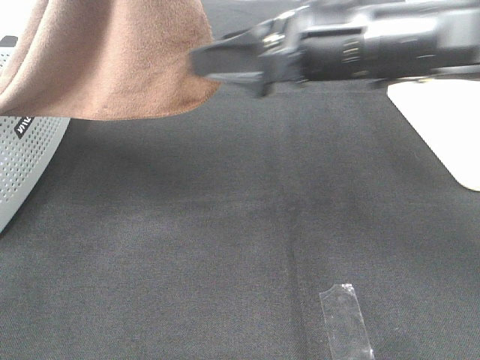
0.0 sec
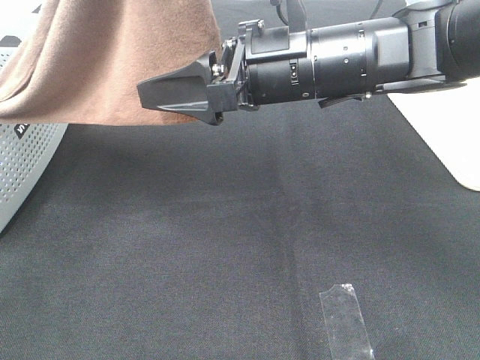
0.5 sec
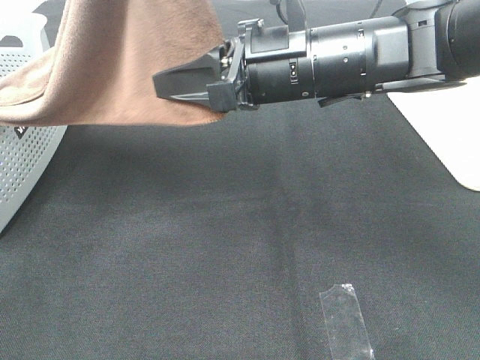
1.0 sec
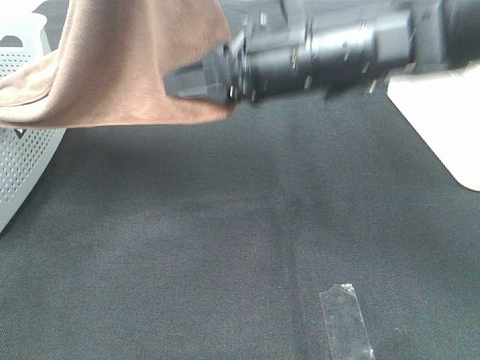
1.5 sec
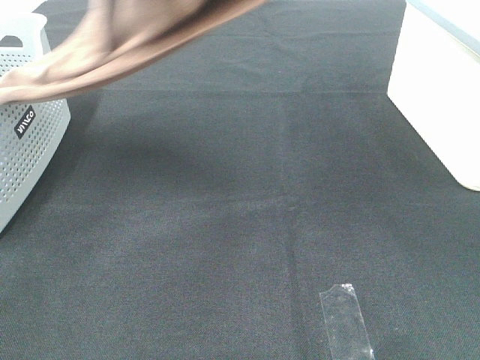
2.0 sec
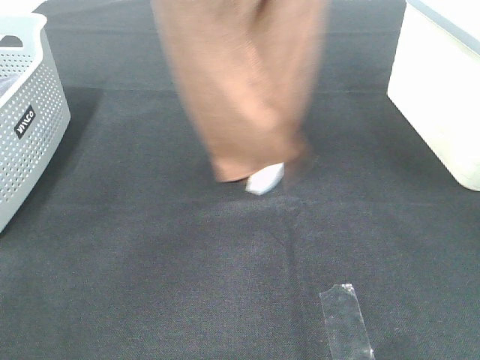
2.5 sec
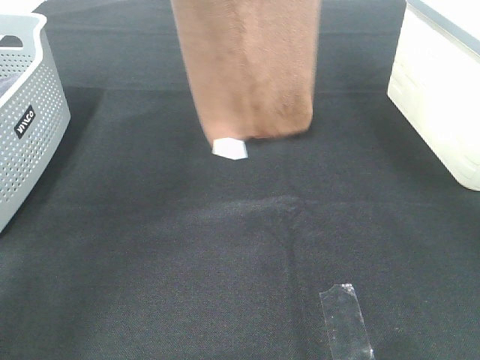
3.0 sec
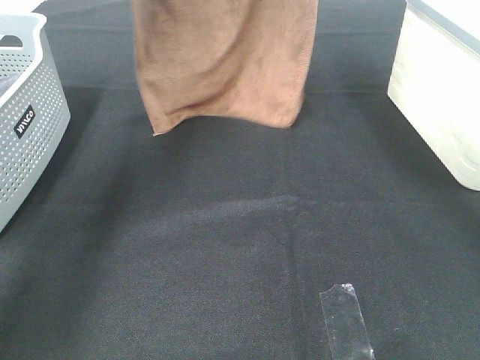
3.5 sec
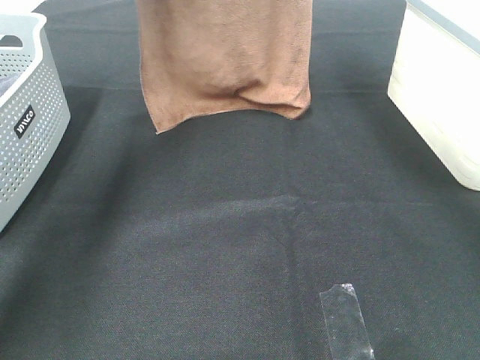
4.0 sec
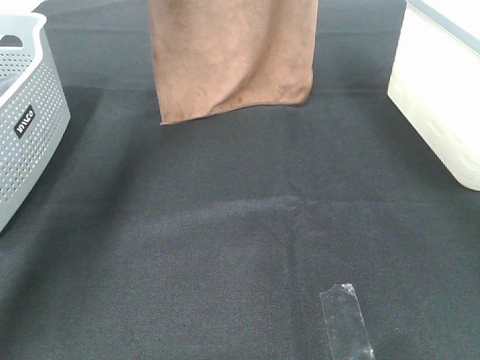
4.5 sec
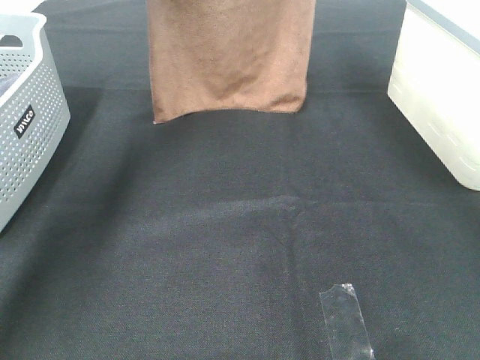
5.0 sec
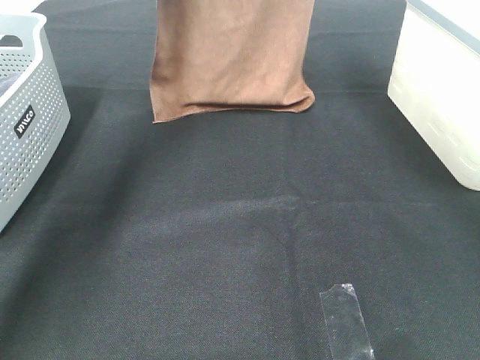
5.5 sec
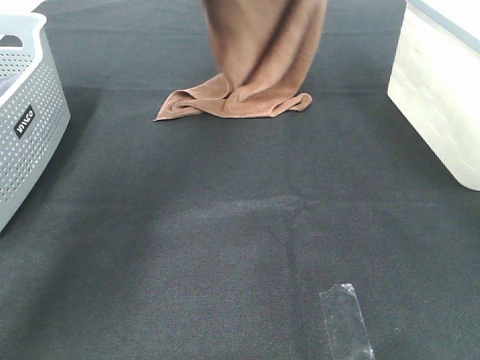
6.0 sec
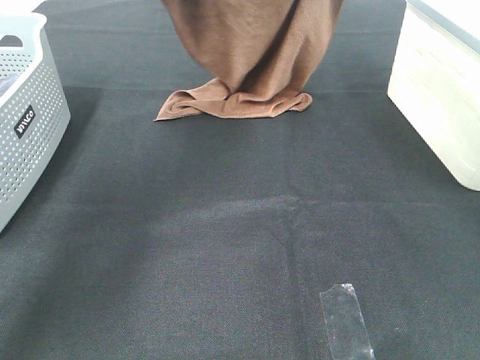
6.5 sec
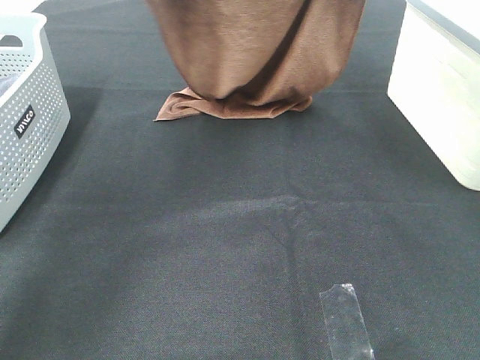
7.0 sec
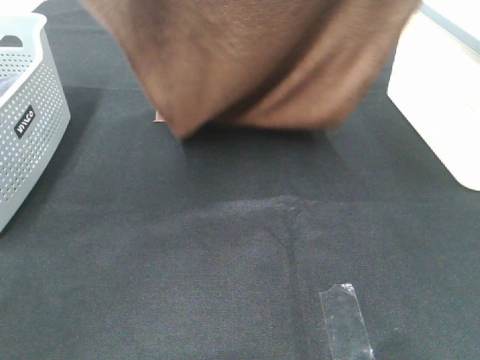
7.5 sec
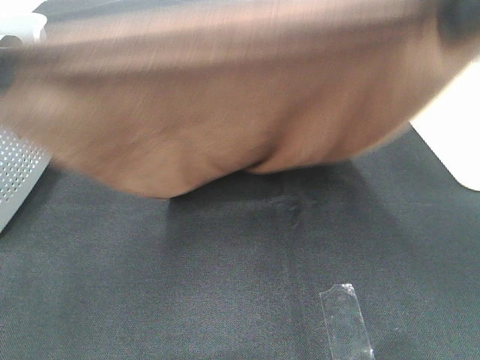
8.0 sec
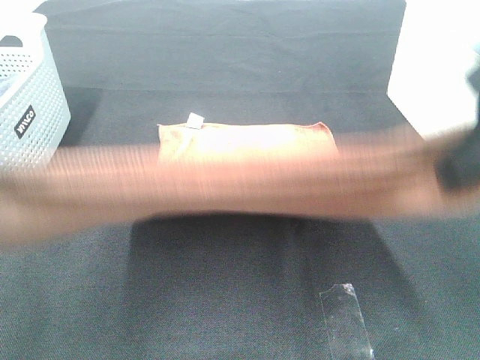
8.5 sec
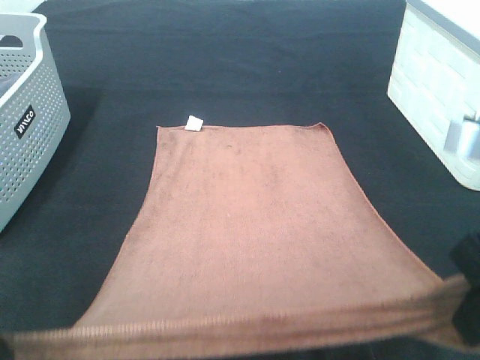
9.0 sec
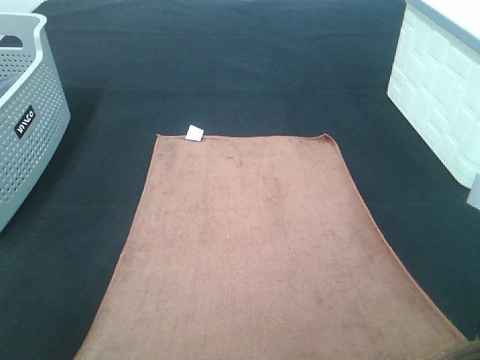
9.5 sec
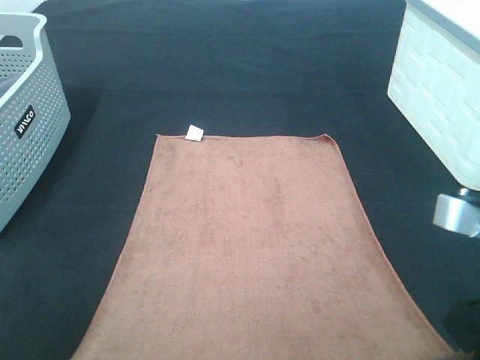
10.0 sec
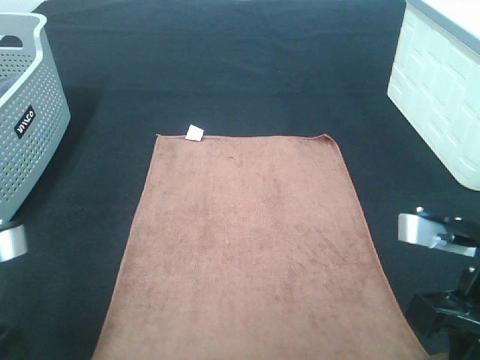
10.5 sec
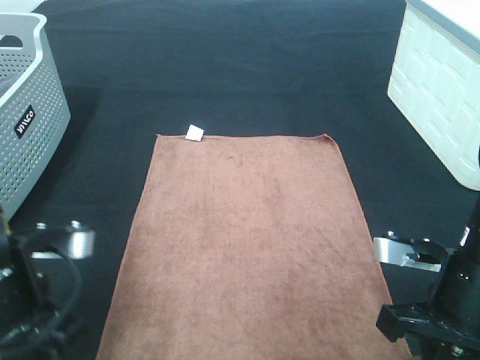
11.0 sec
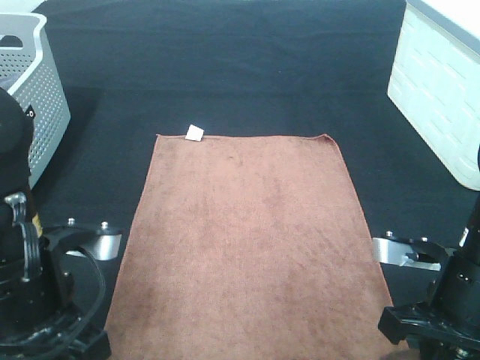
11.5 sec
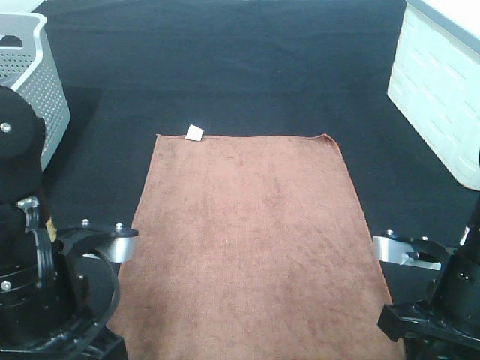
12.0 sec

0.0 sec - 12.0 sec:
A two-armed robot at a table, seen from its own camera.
Task of the whole recording: Remove the towel and place it.
Step, 2.0 sec - 7.5 sec: Left hand: spread the brown towel flat on the table.
Step, 2.0 sec - 7.5 sec: Right hand: spread the brown towel flat on the table.
0.0 sec - 2.0 sec: The right gripper heads upward, covering roughly 20 cm, and closes.
2.0 sec - 4.0 sec: Both grippers move forward, approximately 20 cm.
4.0 sec - 6.0 sec: The left gripper moves downward and to the right, approximately 10 cm. Meanwhile the right gripper travels downward by roughly 5 cm.
6.0 sec - 8.0 sec: Both grippers move backward, approximately 30 cm.
8.0 sec - 10.0 sec: Both grippers travel together downward and backward, roughly 20 cm.
10.0 sec - 12.0 sec: The left gripper heads to the right, forward and downward, covering approximately 10 cm, and opens up. The right gripper goes about 10 cm downward, and opens up.

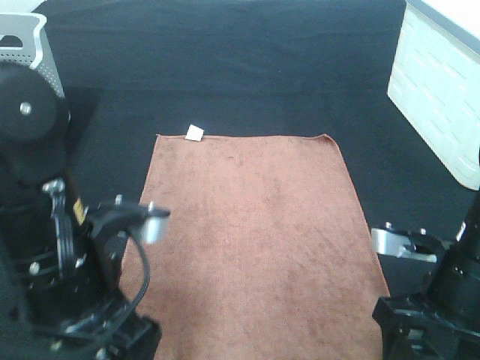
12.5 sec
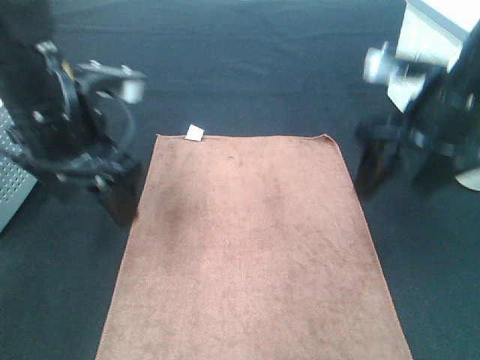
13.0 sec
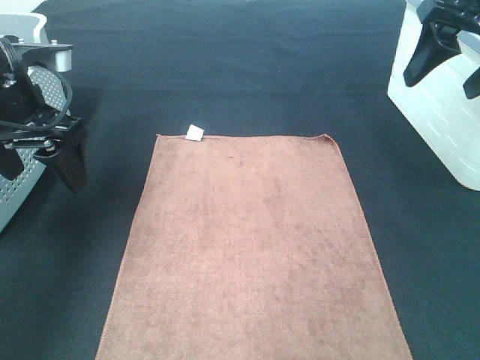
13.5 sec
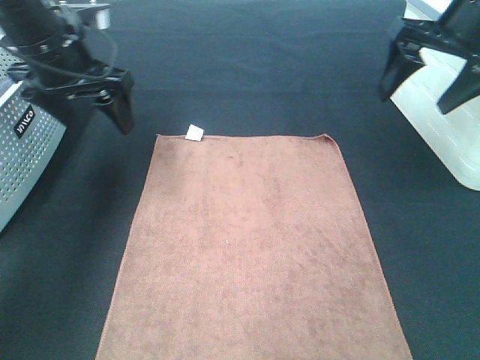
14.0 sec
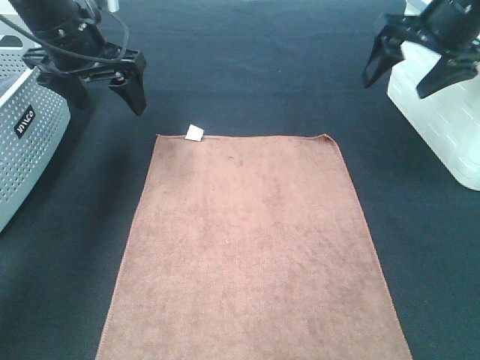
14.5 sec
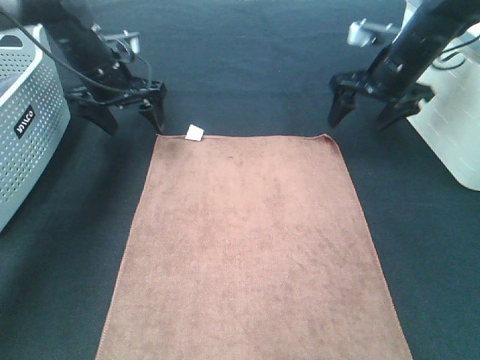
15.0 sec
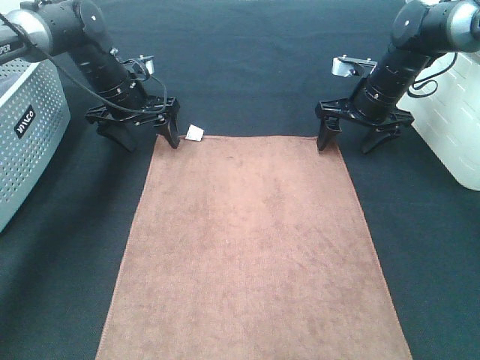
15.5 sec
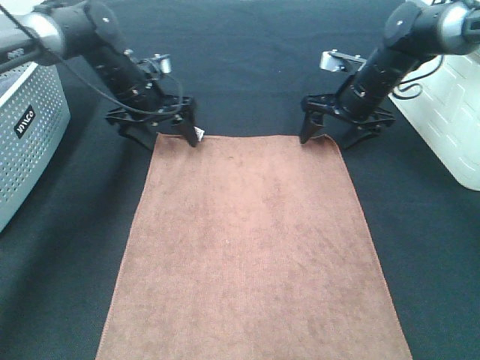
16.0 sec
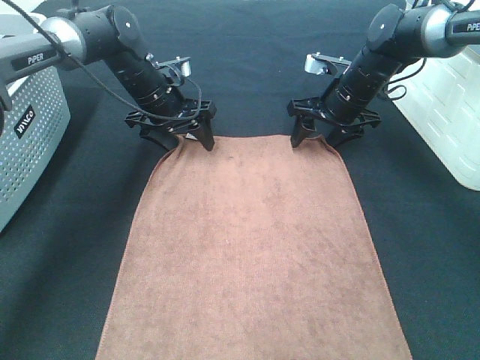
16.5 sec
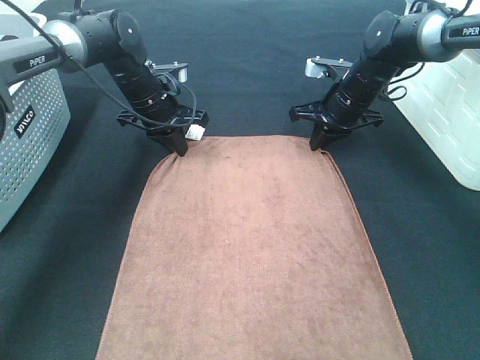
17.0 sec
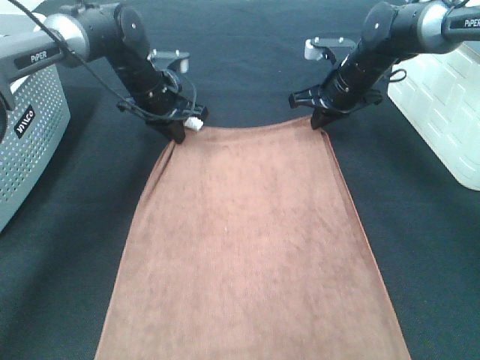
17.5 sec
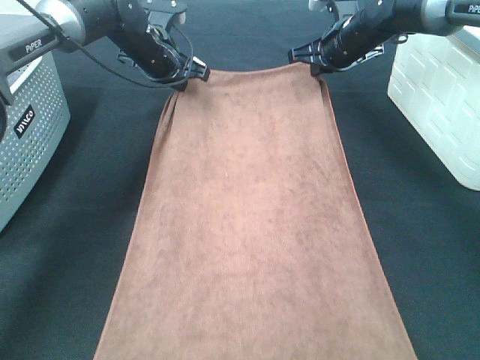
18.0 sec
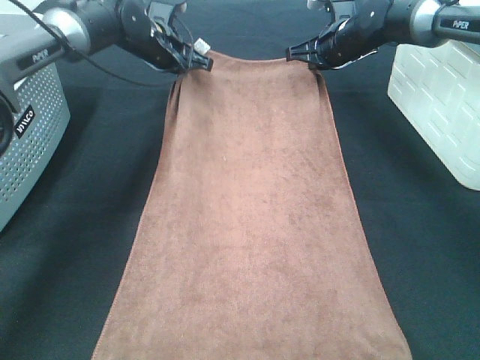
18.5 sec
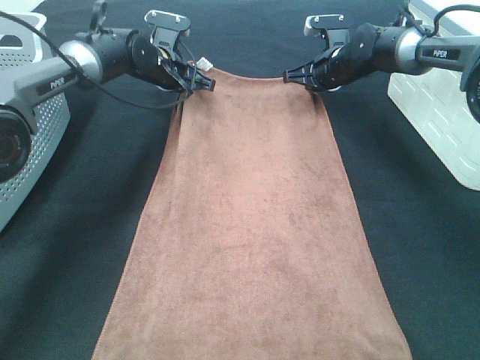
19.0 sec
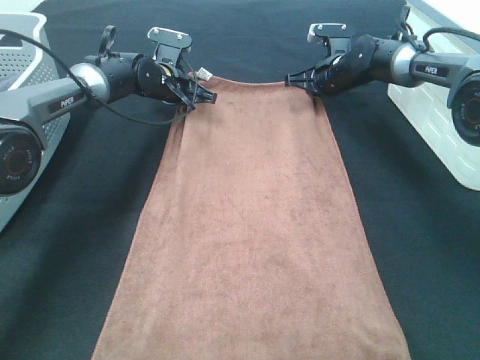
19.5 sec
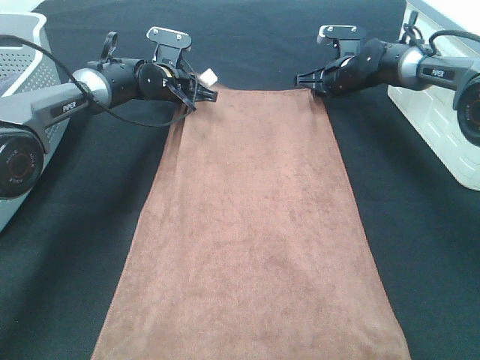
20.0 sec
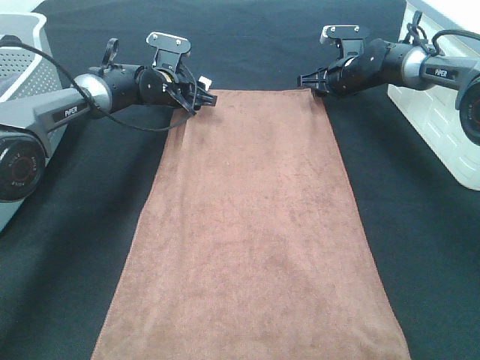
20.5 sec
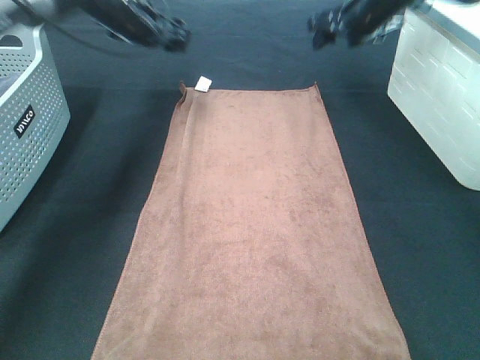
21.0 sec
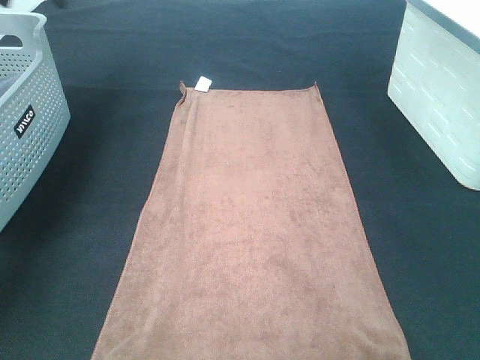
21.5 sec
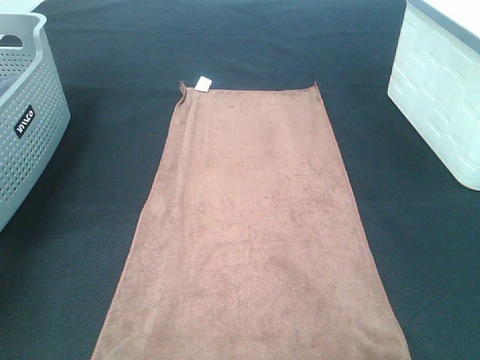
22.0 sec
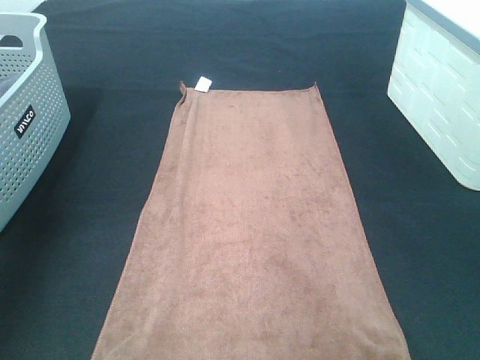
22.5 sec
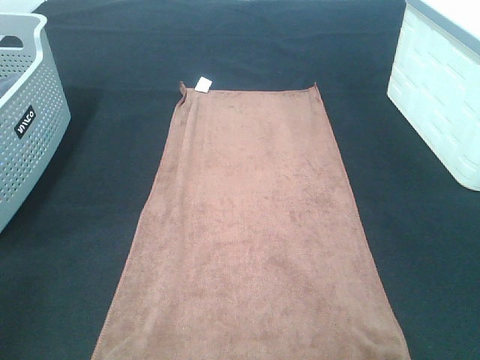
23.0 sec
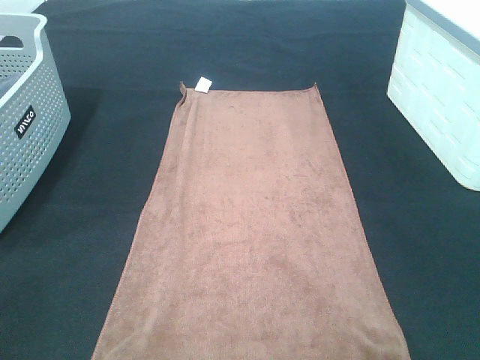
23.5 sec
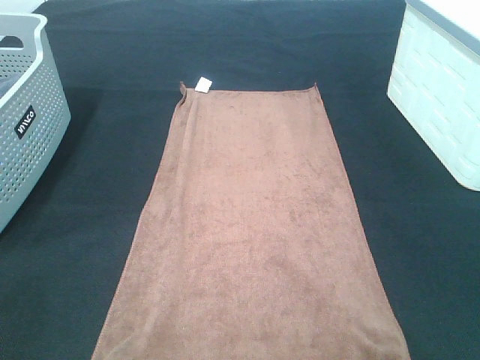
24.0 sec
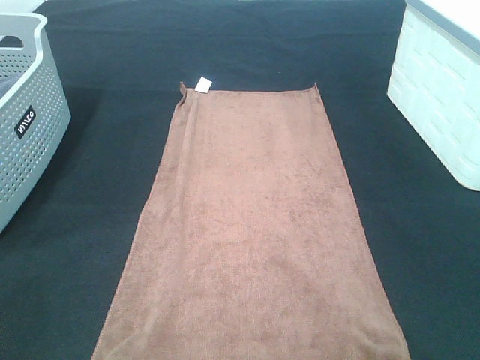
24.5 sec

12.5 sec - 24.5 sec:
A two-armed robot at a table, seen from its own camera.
Task of the whole recording: Remove the towel and place it.
12.5 sec - 14.5 sec: The left gripper travels forward by some 25 cm. Meanwhile the right gripper heads forward and upward, covering roughly 25 cm.
14.5 sec - 16.5 sec: The left gripper heads downward, forward and to the right, covering roughly 15 cm. Meanwhile the right gripper goes approximately 20 cm downward, to the left and forward.
16.5 sec - 18.5 sec: The right gripper goes some 10 cm forward and upward, and closes, while the left gripper is displaced forward by approximately 5 cm, and closes up.
18.5 sec - 20.5 sec: The grippers both shift downward by approximately 10 cm. The right gripper opens its fingers, while the left gripper opens its fingers.
20.5 sec - 22.5 sec: The right gripper heads backward and upward, covering some 50 cm, while the left gripper moves backward, upward and to the left, some 50 cm.
22.5 sec - 24.5 sec: The grippers both shift backward and downward by some 25 cm.

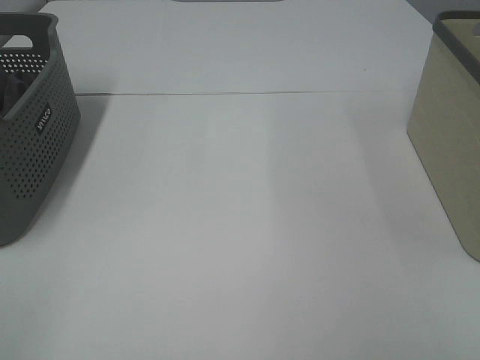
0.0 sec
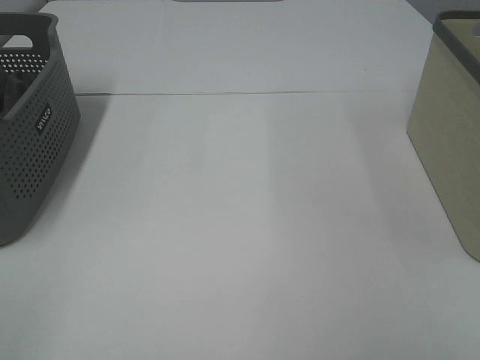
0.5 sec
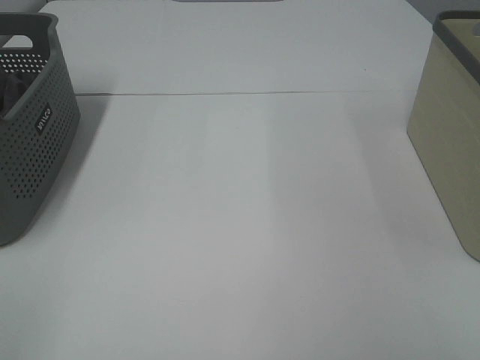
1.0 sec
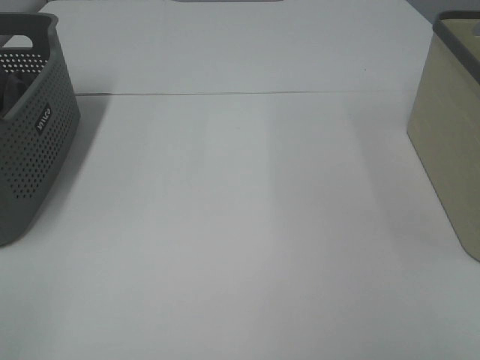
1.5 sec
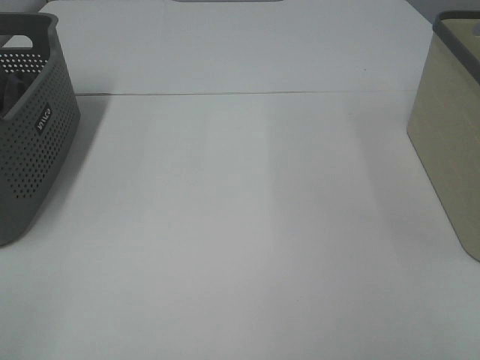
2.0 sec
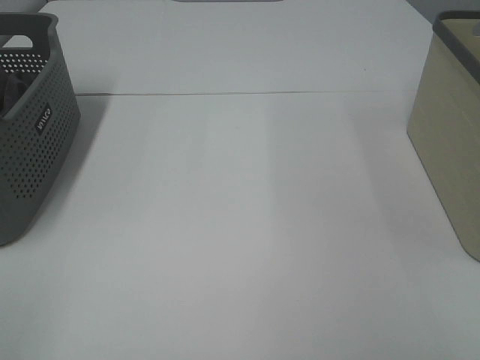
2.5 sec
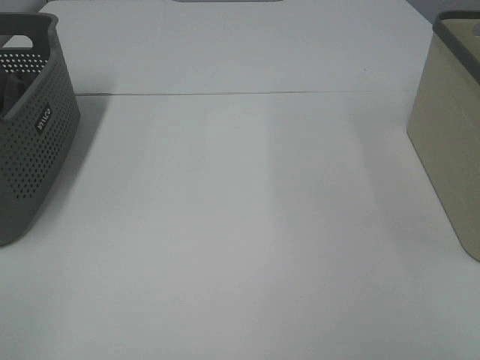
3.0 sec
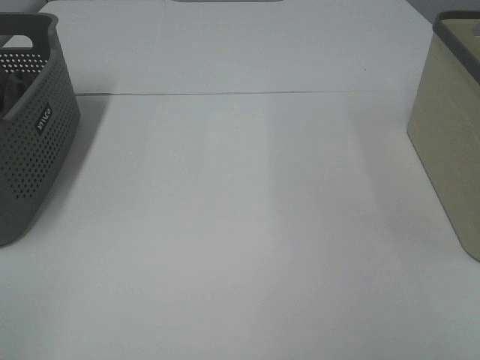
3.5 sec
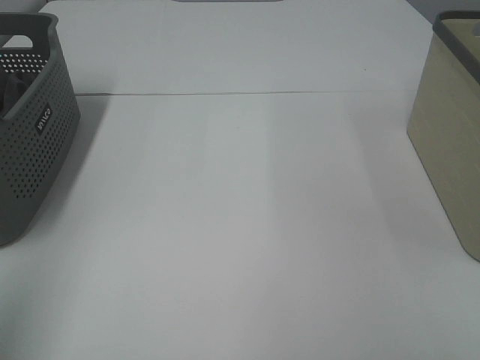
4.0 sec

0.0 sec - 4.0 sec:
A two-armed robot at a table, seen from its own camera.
Task of the whole recording: Remove the towel and place it.
0.0 sec - 2.0 sec: Both grippers stay put.
